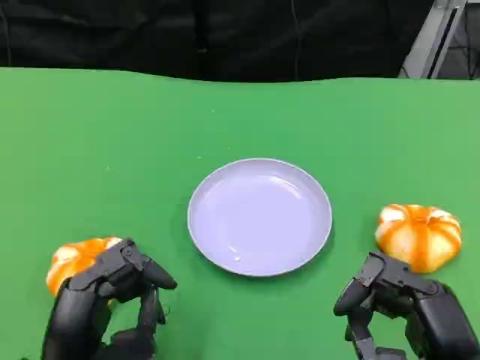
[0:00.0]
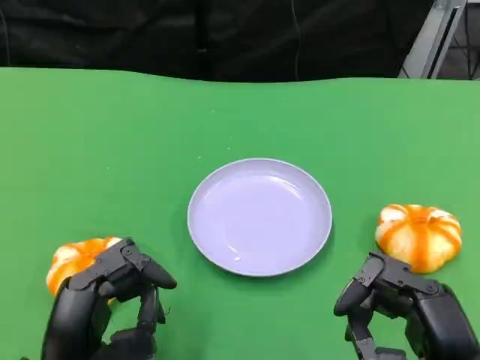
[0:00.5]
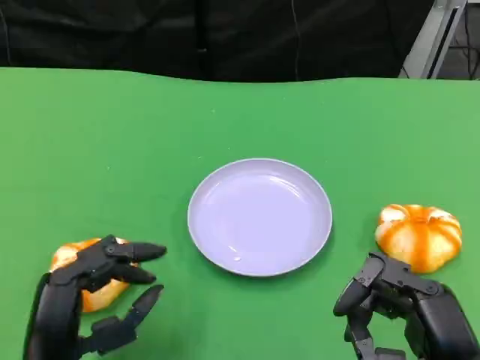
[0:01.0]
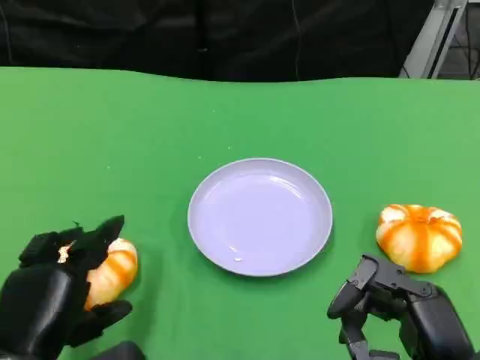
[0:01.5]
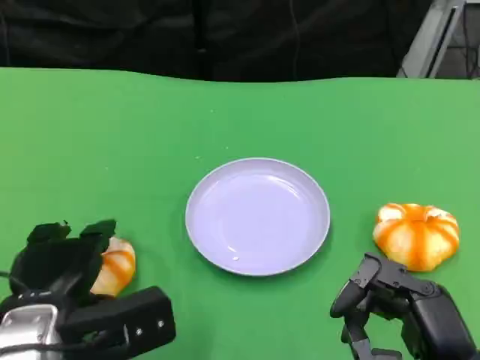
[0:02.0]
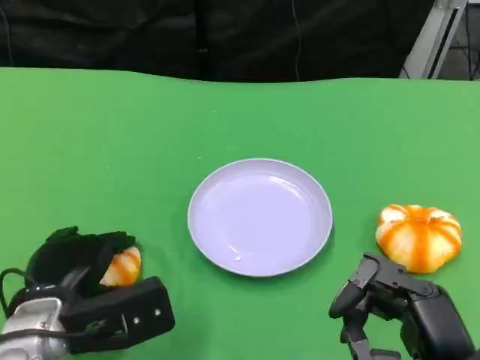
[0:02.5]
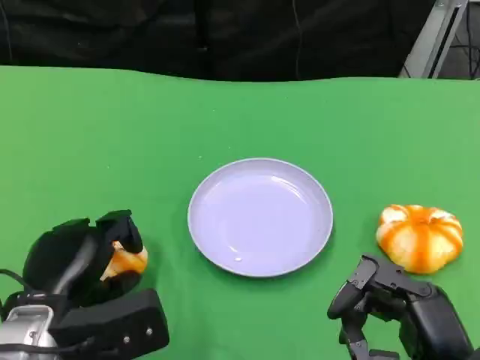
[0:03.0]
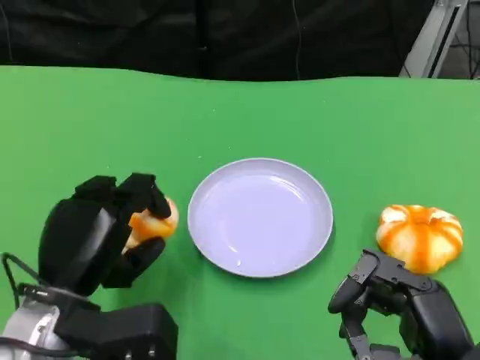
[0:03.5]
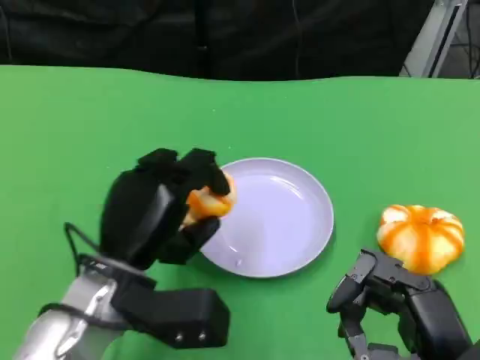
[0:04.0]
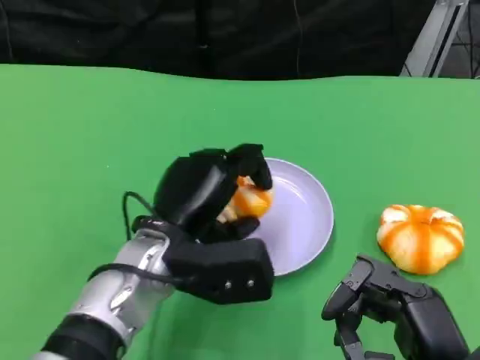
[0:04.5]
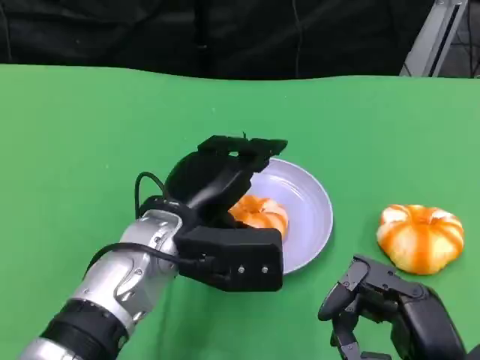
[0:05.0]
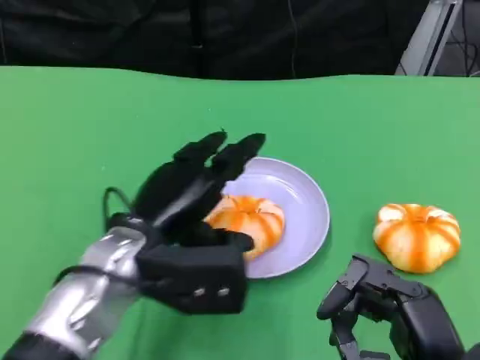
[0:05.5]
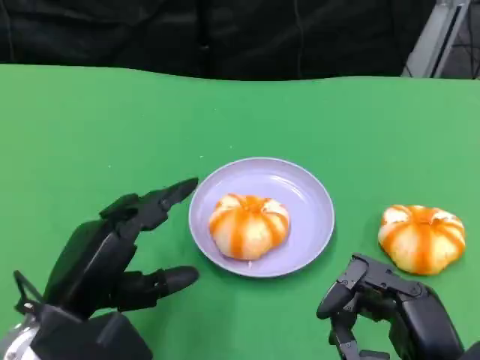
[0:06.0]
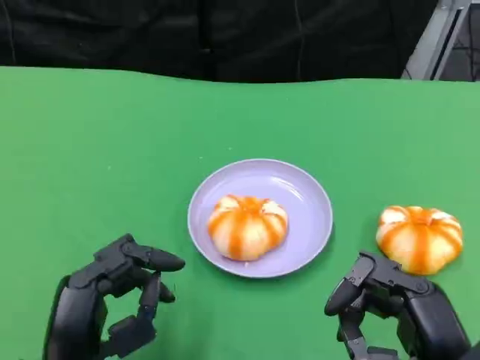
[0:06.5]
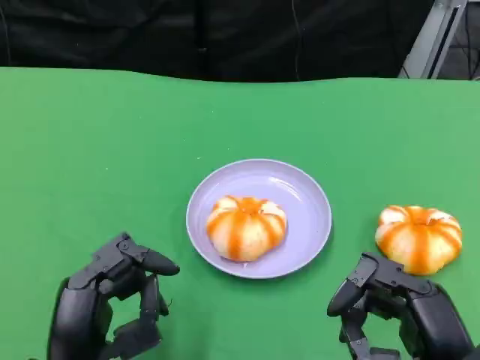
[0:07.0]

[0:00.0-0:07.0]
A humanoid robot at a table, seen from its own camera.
Task of the whole recording: Grasp the bread from the table and place it into the plate.
0.0 to 2.0 s: The left hand travels forward by about 5 cm.
3.5 to 5.0 s: The left hand heads to the right and forward, covering about 10 cm.
5.0 to 7.0 s: The left hand is displaced backward and to the left by approximately 15 cm.

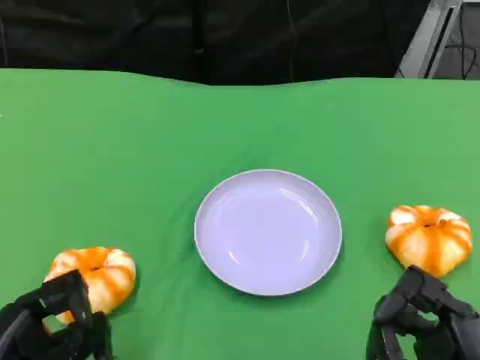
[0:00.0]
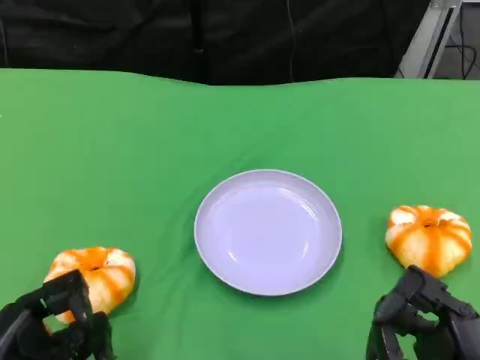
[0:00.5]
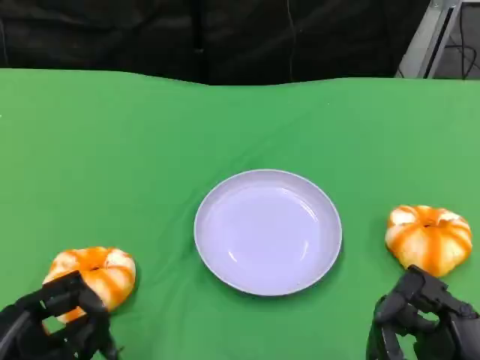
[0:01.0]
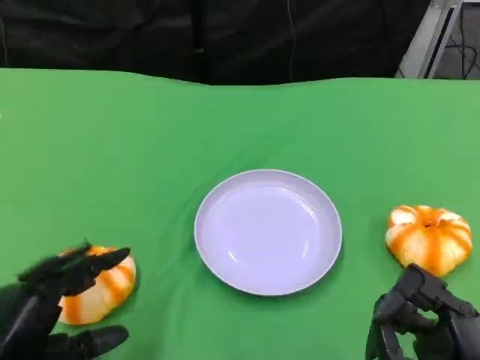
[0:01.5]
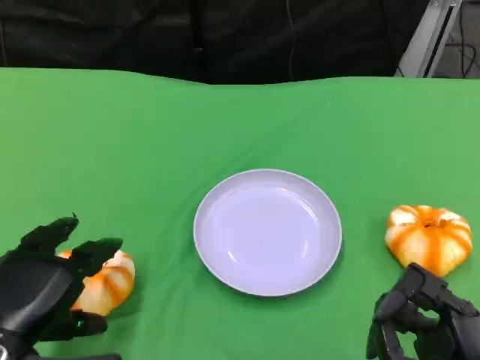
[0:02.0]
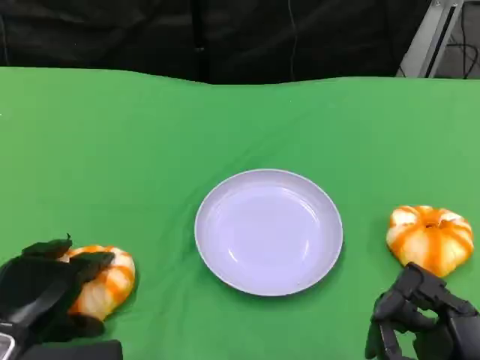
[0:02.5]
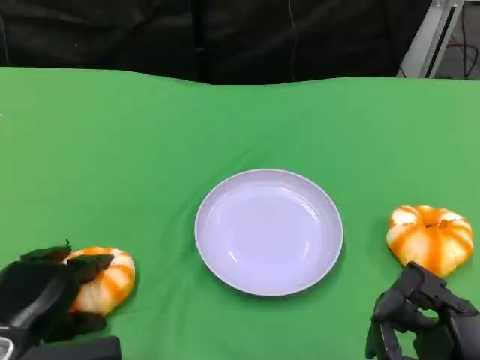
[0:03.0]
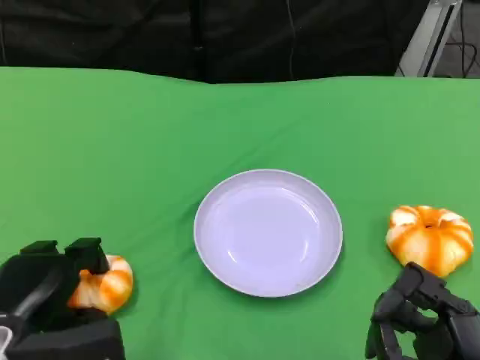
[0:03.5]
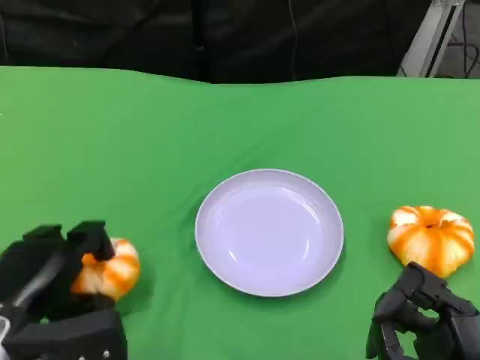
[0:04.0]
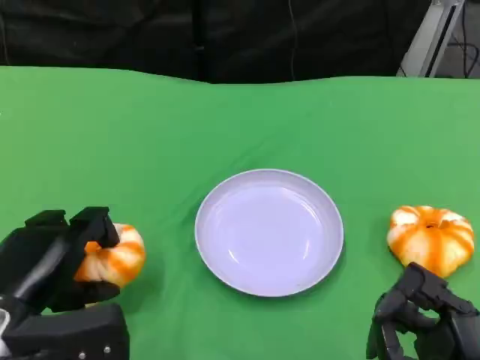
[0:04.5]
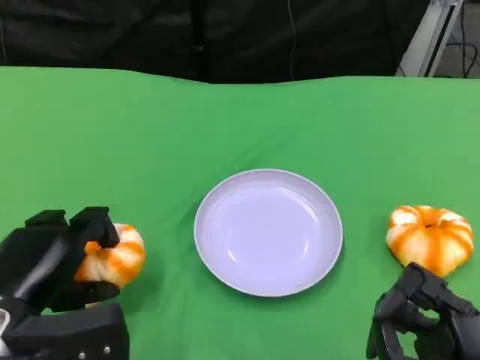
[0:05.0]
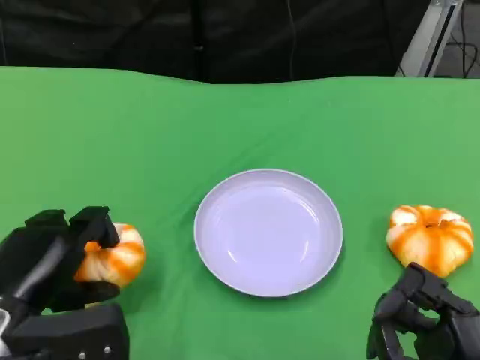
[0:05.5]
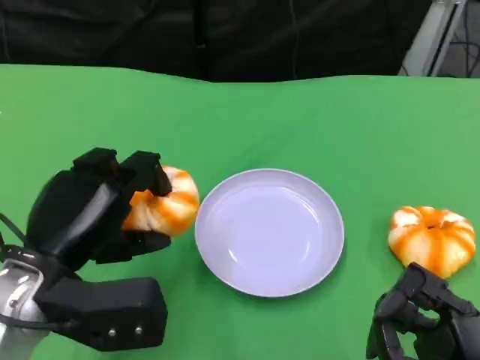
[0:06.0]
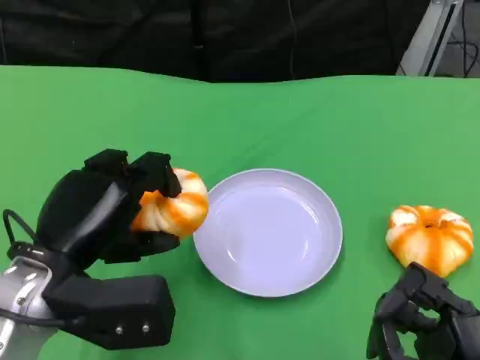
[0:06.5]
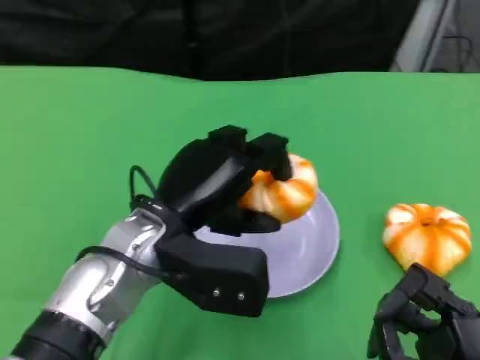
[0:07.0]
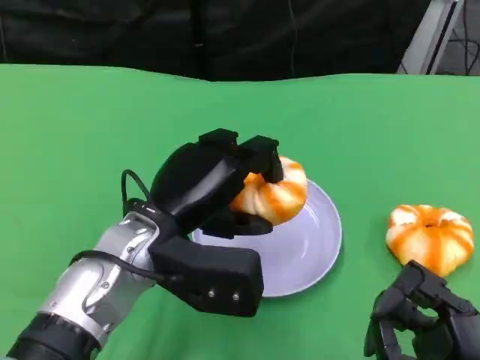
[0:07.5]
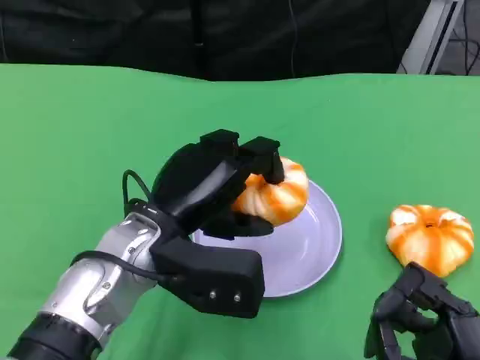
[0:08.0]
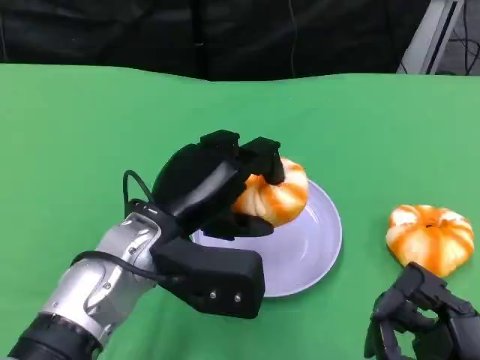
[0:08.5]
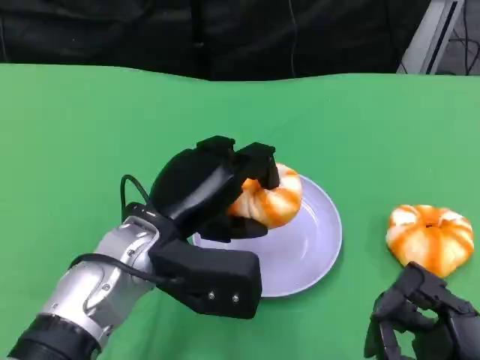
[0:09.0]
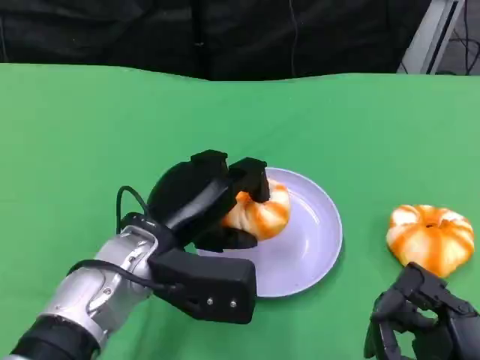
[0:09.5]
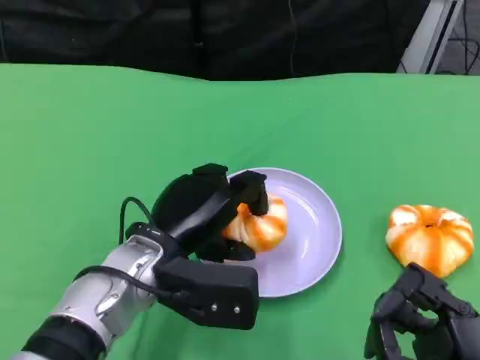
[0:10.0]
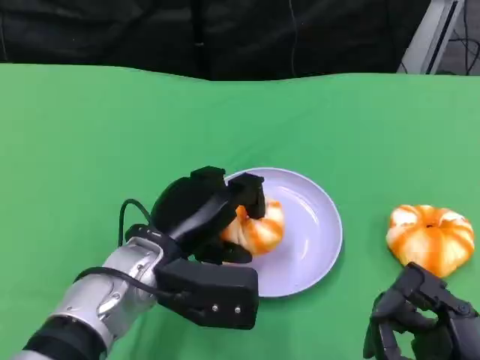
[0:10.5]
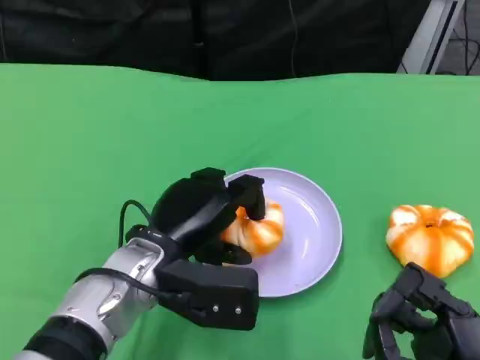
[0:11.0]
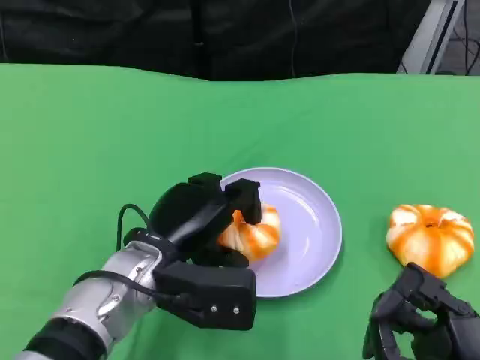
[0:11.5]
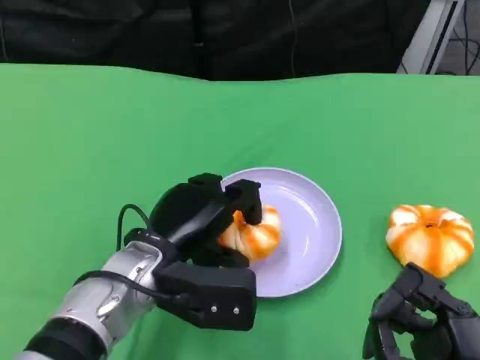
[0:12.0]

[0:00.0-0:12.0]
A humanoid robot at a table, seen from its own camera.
Task of the whole recording: Grasp the bread from the table and place it into the plate.
0.0 to 2.0 s: The left hand heads forward, covering about 5 cm.
2.0 to 4.0 s: The hands stay close to where they were, moving slightly.
4.0 to 6.0 s: The left hand heads upward, covering approximately 5 cm.
6.0 to 8.0 s: The left hand moves to the right, about 10 cm.
8.0 to 10.0 s: The hands move only a little.
10.0 to 12.0 s: Neither hand changes place.

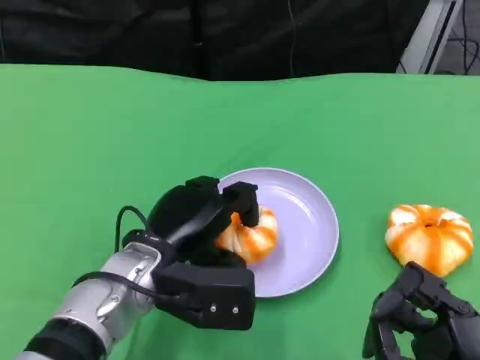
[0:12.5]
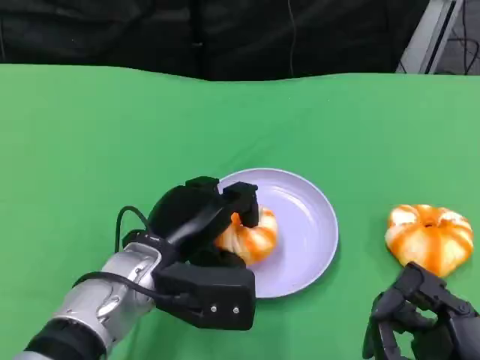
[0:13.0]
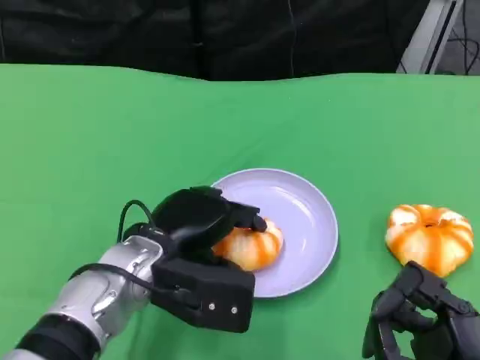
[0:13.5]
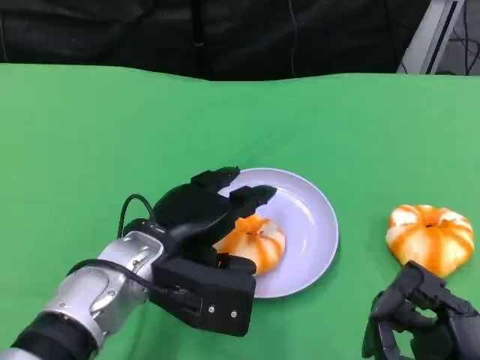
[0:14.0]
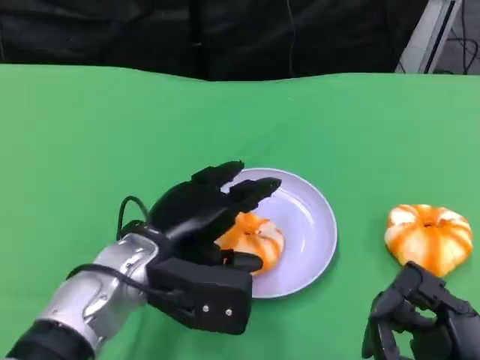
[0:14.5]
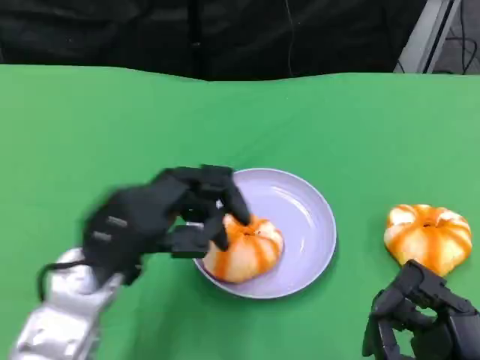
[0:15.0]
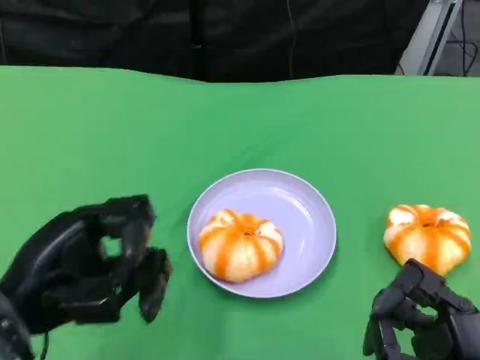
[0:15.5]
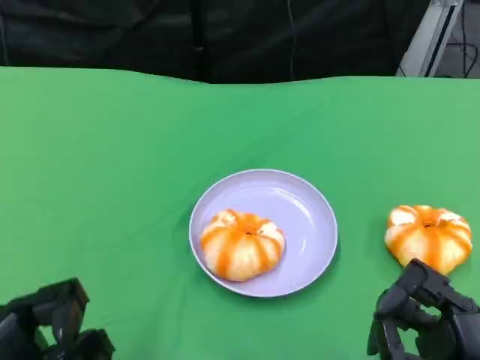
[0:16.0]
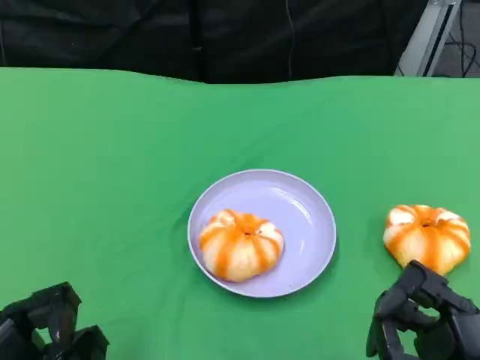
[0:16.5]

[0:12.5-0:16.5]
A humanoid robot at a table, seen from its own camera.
Task of the whole recording: Grasp the bread from the table and place it into the plate.
12.5 to 14.5 s: The hands stay close to where they were, moving slightly.
14.5 to 16.5 s: The left hand goes some 20 cm to the left and backward.

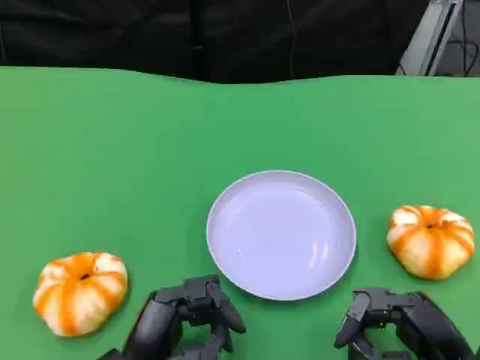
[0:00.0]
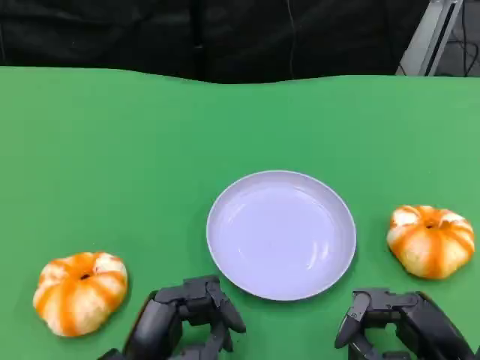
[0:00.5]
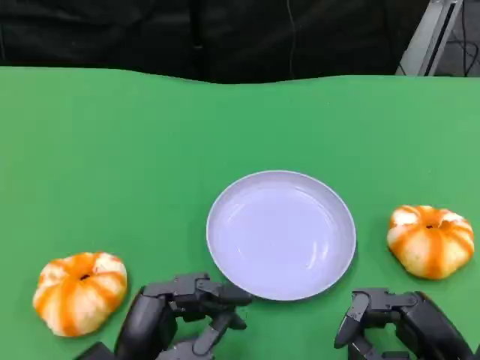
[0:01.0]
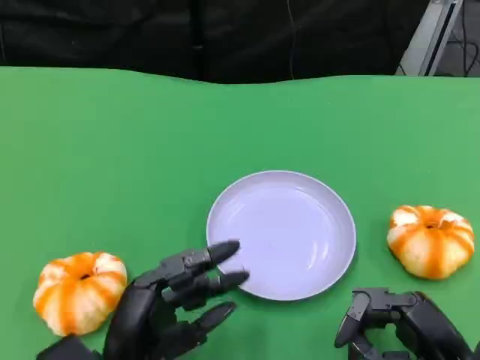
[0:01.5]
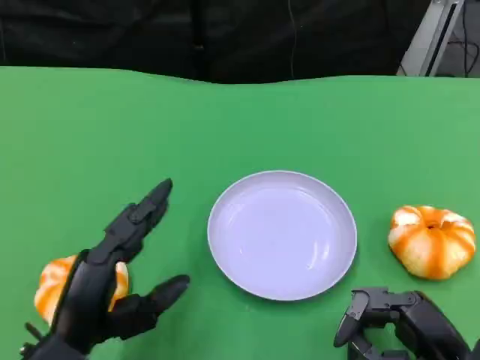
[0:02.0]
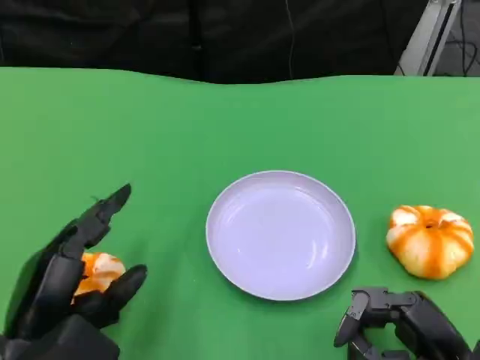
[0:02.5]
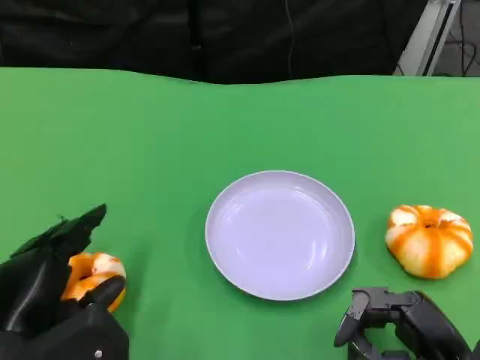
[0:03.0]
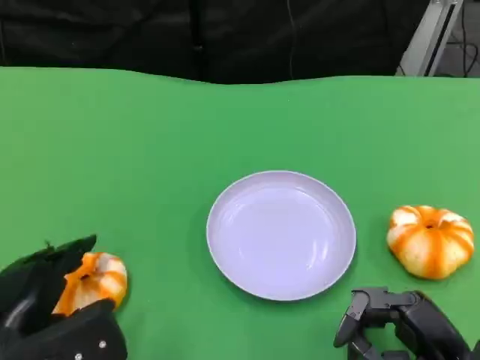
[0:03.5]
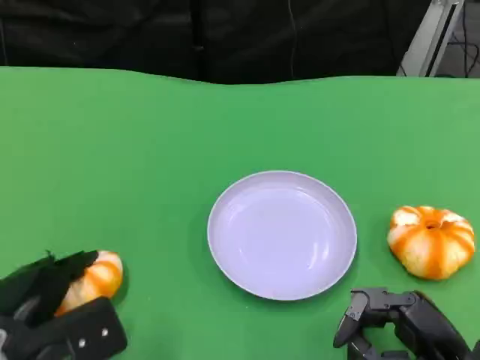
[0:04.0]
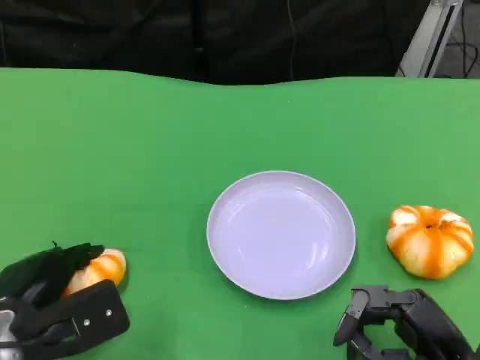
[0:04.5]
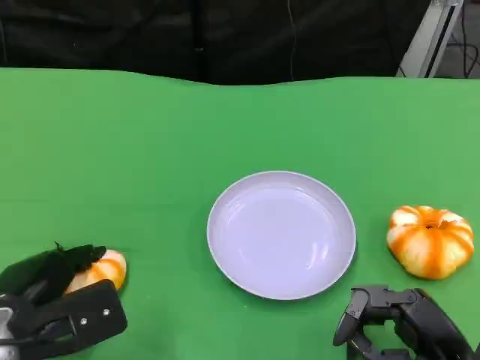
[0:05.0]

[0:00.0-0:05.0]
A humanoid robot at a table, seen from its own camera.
Task of the whole recording: Grasp the bread from the table and place it into the plate.
0.0 to 2.5 s: The left hand travels to the left and upward by about 10 cm.
2.5 to 5.0 s: The left hand ends up some 5 cm from where it was.
